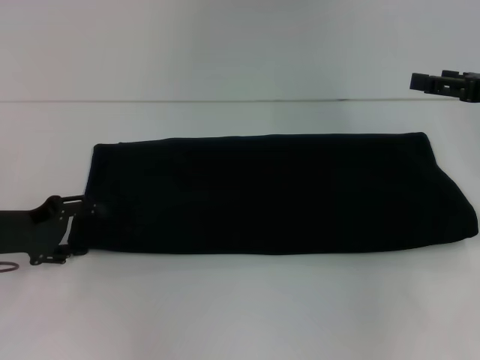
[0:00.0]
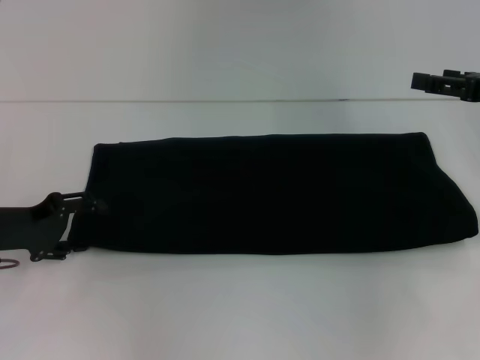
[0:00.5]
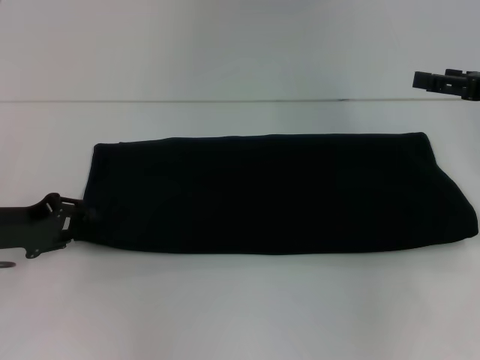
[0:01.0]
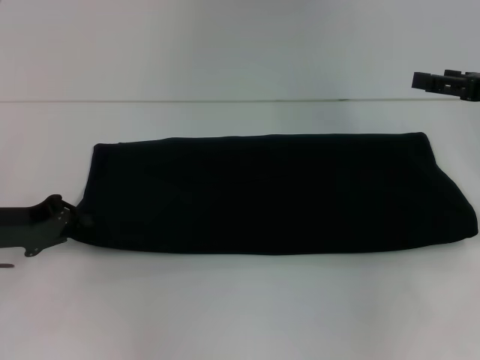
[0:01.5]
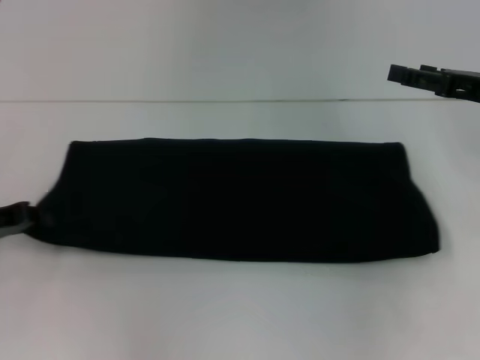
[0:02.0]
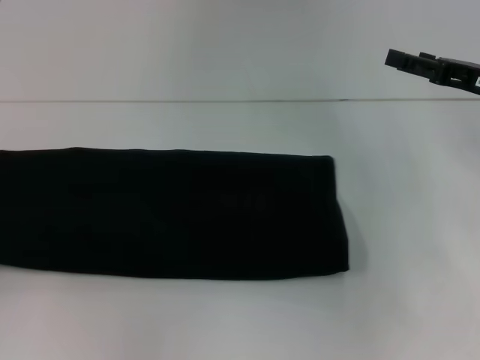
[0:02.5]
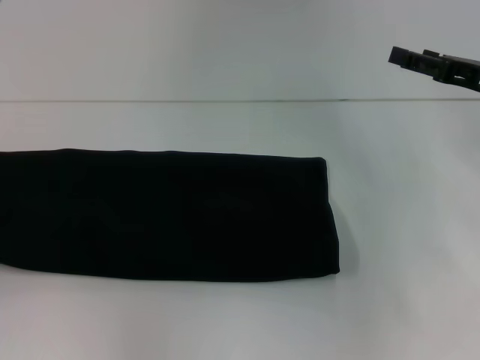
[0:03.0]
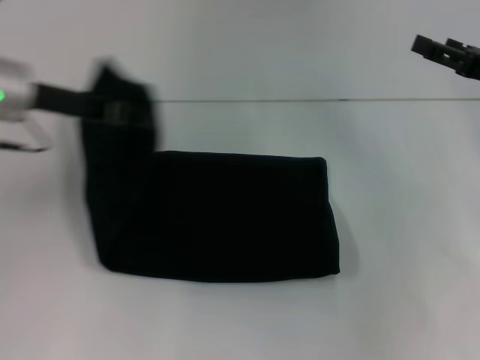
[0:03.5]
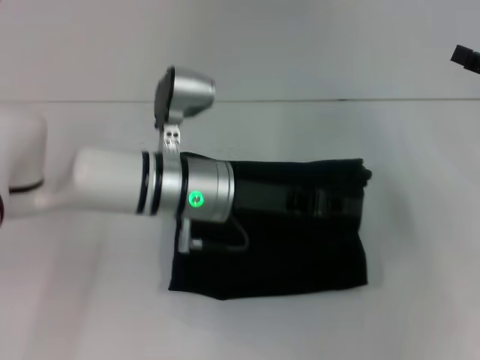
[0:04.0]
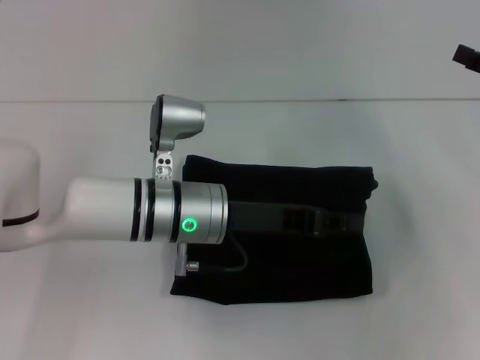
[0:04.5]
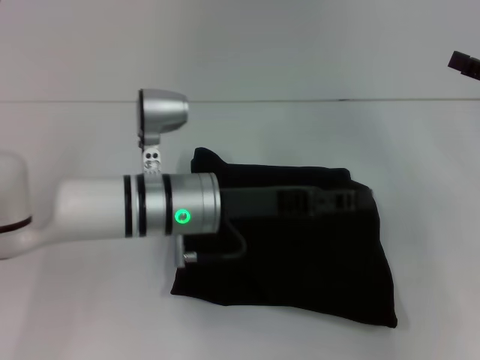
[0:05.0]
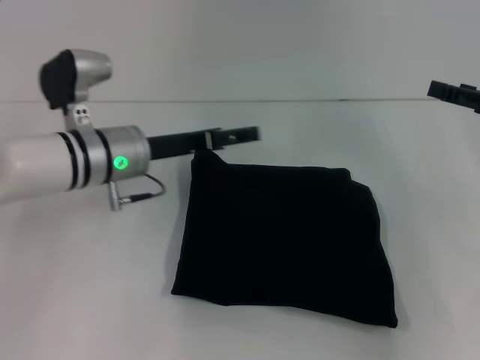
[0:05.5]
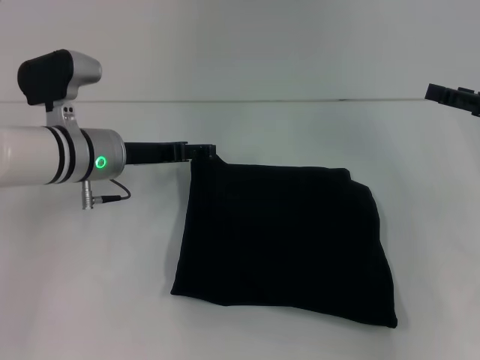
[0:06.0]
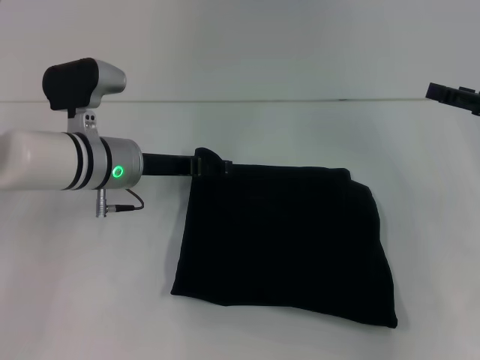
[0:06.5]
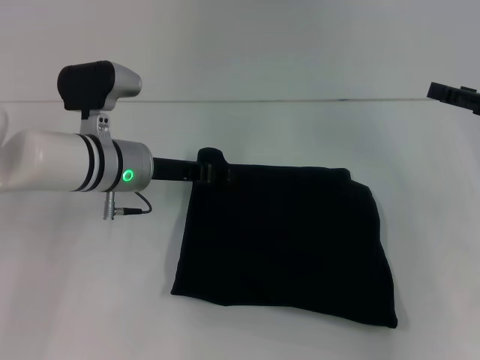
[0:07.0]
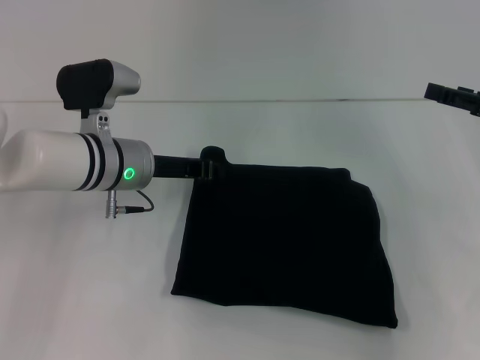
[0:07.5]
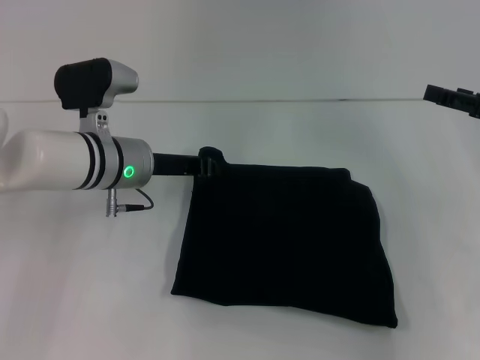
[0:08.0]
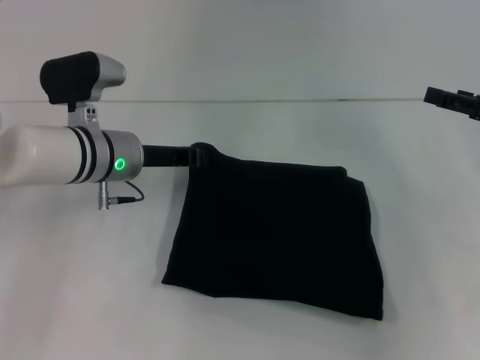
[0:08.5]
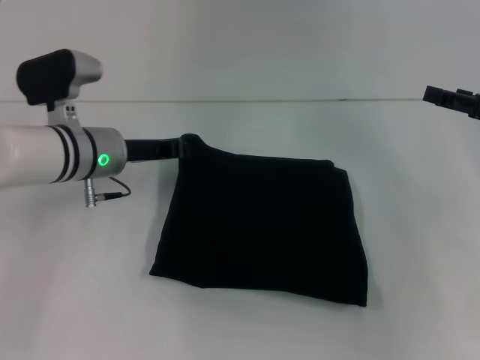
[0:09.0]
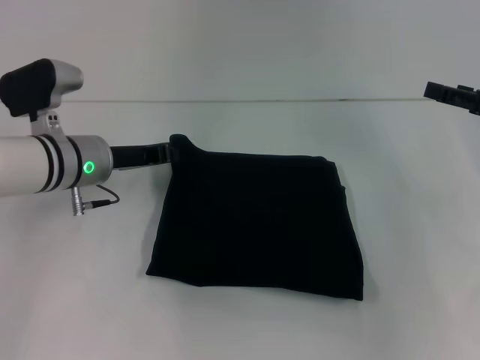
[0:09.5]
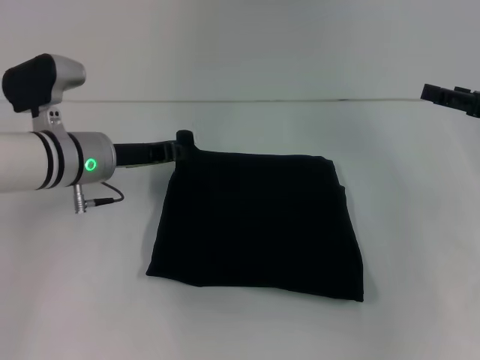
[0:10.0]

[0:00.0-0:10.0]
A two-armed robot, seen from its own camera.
Step, 0:00.0 to 0:04.5: Fold the clothes with your left hand.
0:00.0 to 0:02.0: The left gripper closes its fingers.
0:02.0 to 0:04.0: The right gripper shifts by roughly 5 cm, while the left gripper moves to the right, some 25 cm.
0:04.0 to 0:06.0: The left gripper heads to the left and forward, covering some 10 cm, and opens.
0:06.0 to 0:08.0: The left gripper closes up.
0:08.0 to 0:10.0: The grippers stay close to where they were, moving slightly.

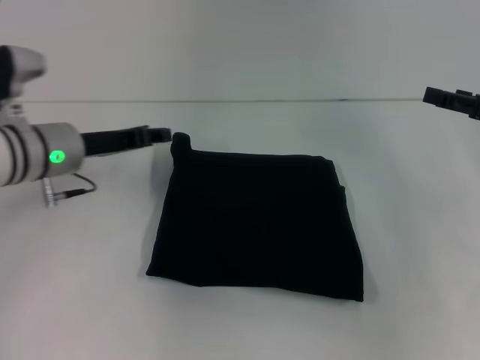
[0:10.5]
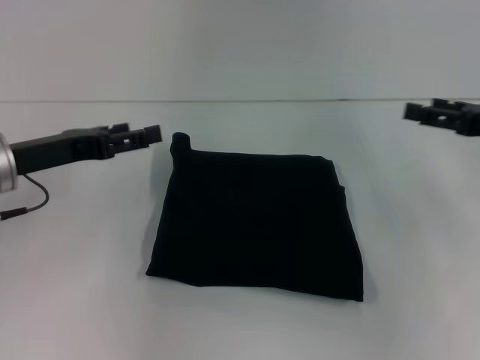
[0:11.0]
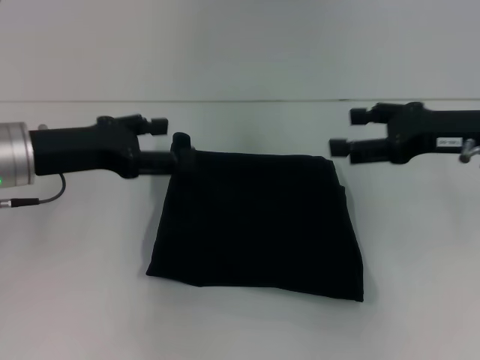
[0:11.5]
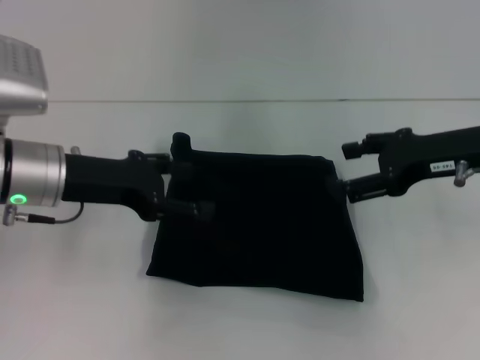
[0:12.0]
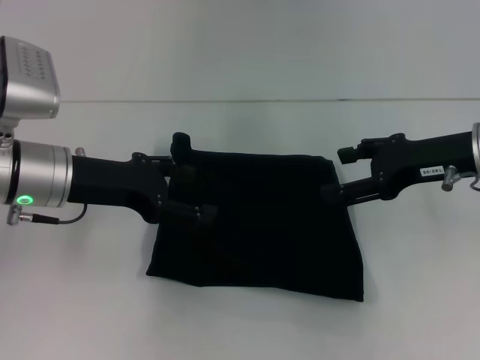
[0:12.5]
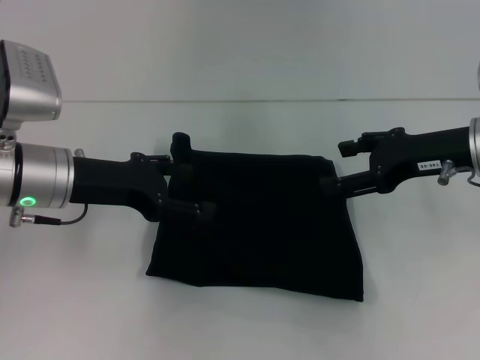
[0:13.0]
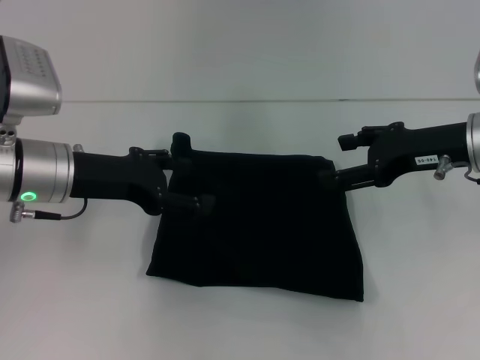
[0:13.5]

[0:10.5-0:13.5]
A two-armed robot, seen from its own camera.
0:10.5 to 0:12.0: The left gripper changes place by some 5 cm, and opens, while the right gripper heads to the left, covering approximately 10 cm.
0:12.0 to 0:13.5: The grippers make only small movements.
